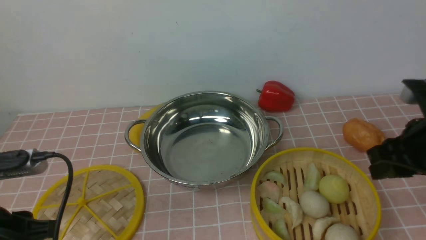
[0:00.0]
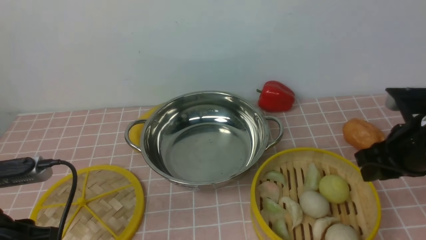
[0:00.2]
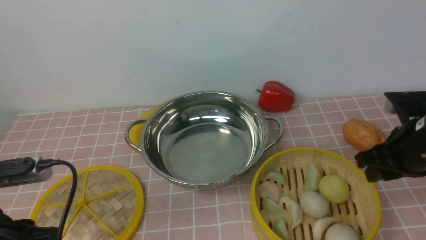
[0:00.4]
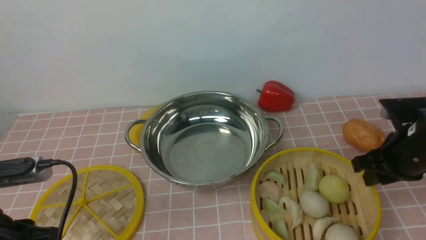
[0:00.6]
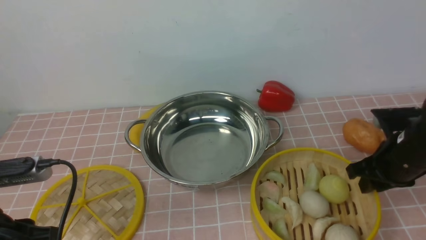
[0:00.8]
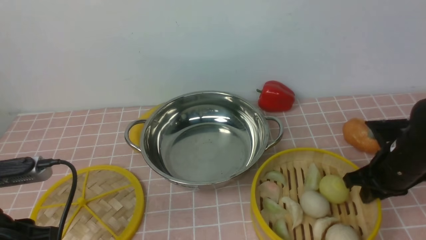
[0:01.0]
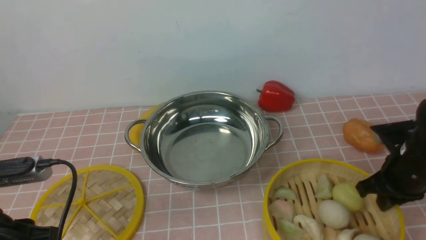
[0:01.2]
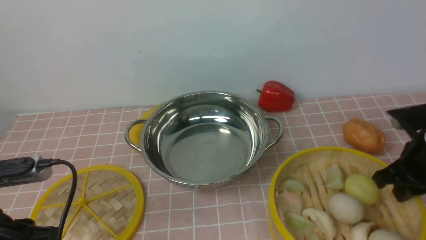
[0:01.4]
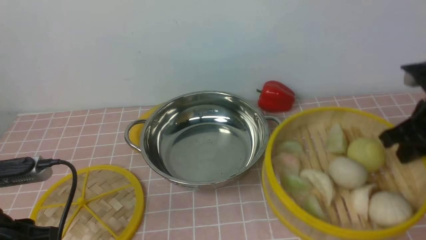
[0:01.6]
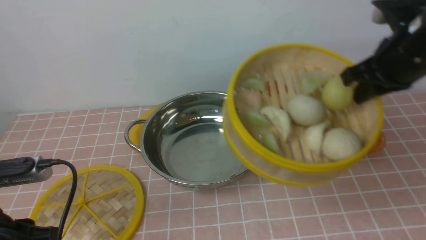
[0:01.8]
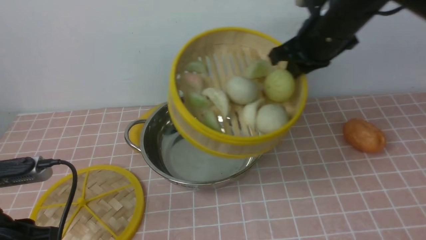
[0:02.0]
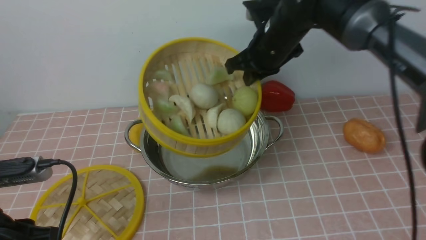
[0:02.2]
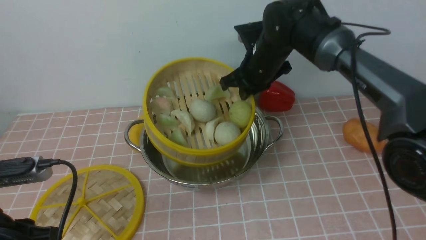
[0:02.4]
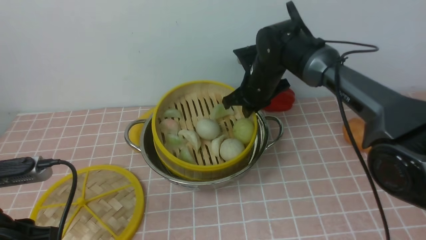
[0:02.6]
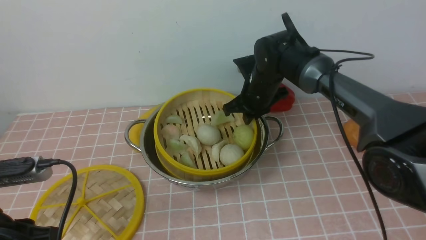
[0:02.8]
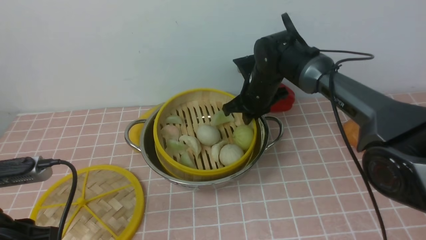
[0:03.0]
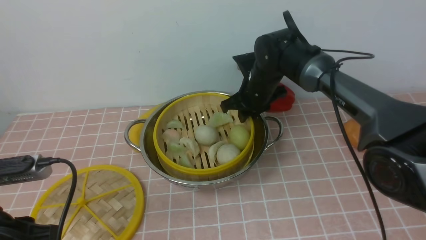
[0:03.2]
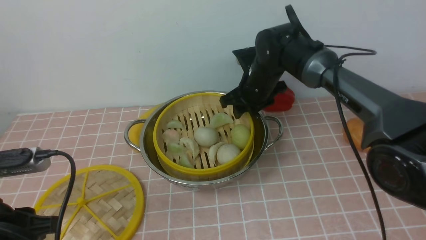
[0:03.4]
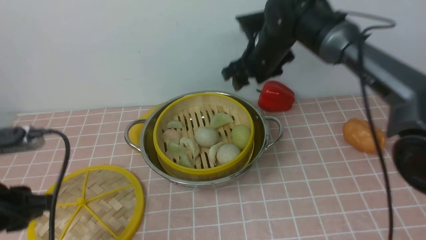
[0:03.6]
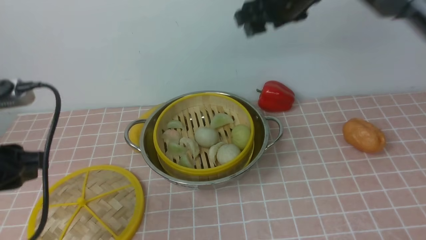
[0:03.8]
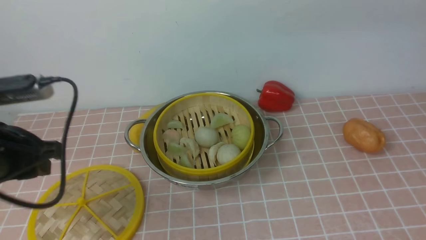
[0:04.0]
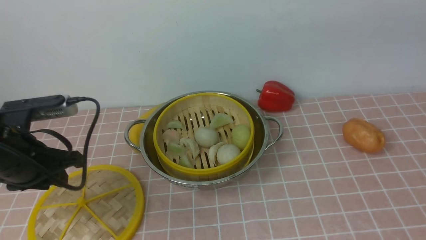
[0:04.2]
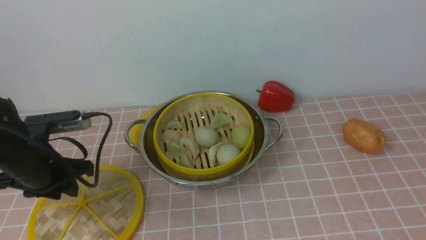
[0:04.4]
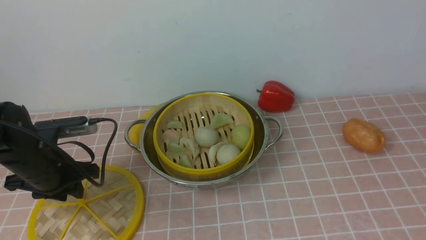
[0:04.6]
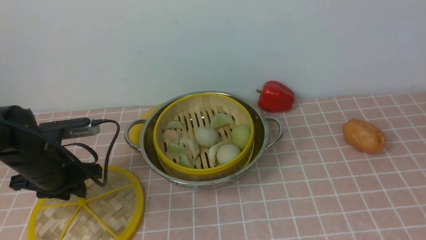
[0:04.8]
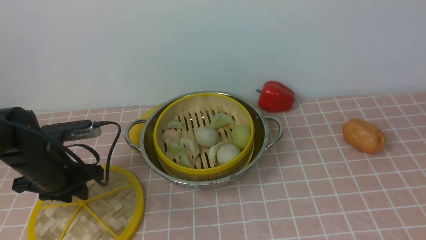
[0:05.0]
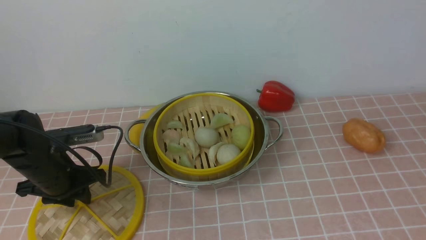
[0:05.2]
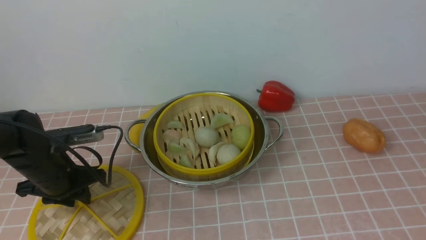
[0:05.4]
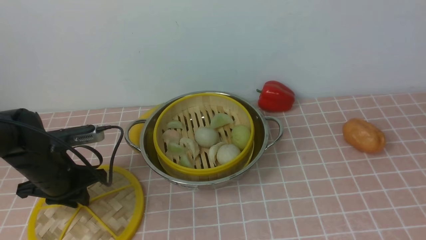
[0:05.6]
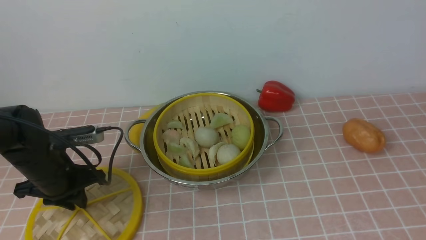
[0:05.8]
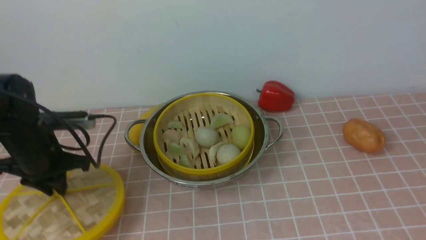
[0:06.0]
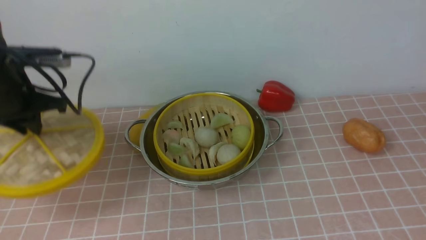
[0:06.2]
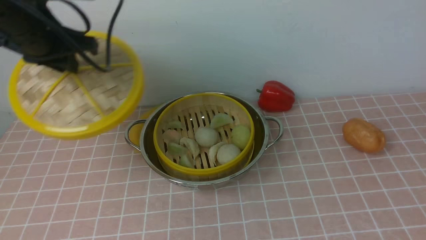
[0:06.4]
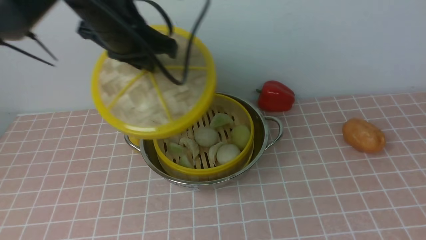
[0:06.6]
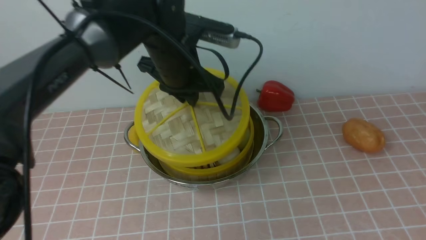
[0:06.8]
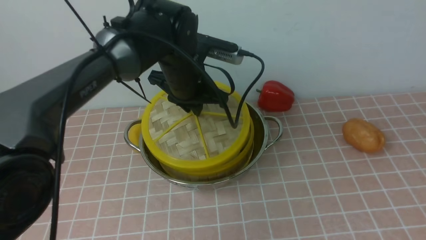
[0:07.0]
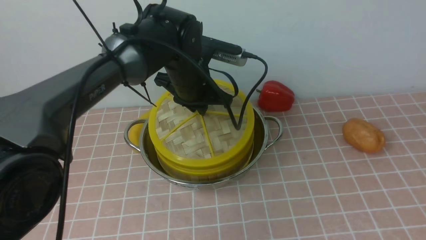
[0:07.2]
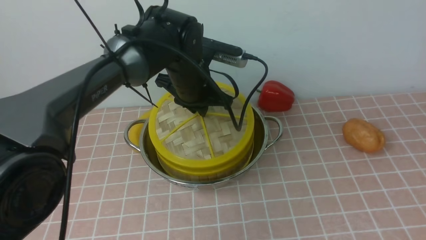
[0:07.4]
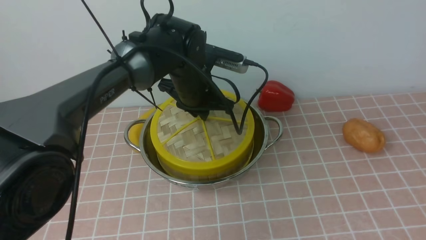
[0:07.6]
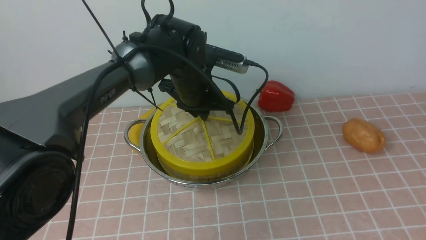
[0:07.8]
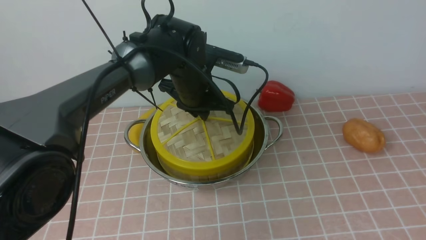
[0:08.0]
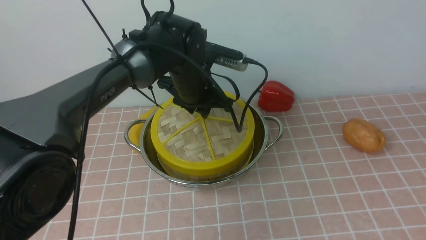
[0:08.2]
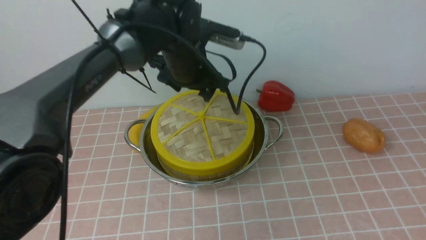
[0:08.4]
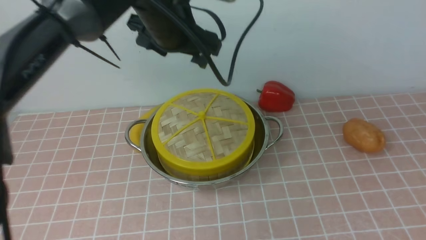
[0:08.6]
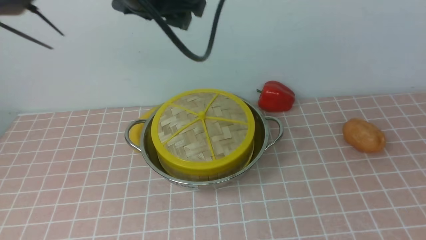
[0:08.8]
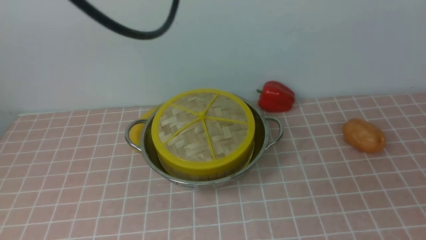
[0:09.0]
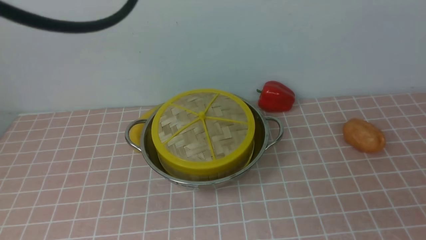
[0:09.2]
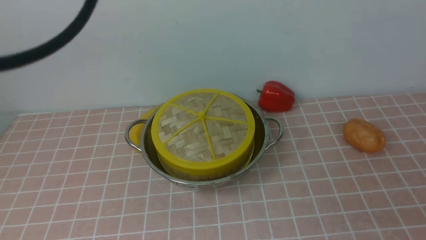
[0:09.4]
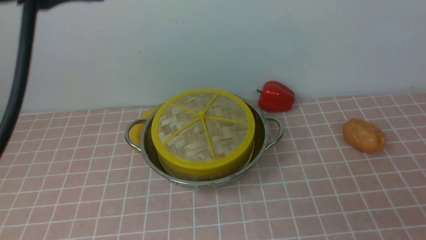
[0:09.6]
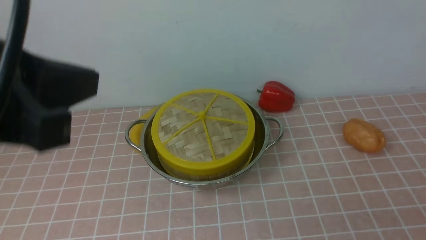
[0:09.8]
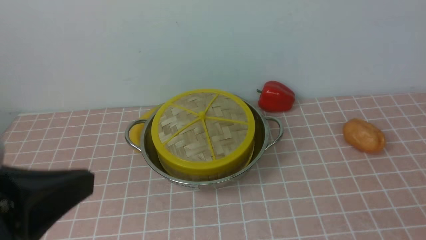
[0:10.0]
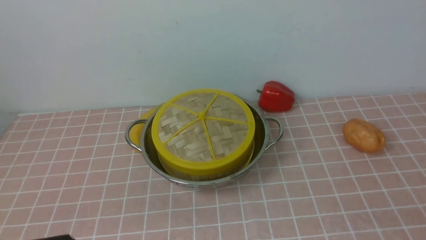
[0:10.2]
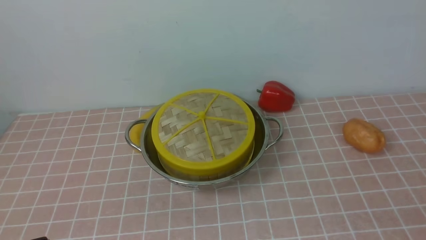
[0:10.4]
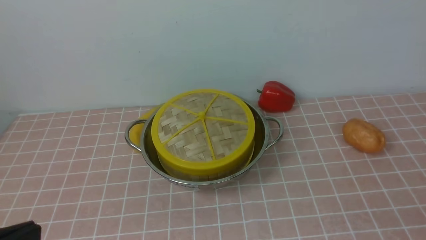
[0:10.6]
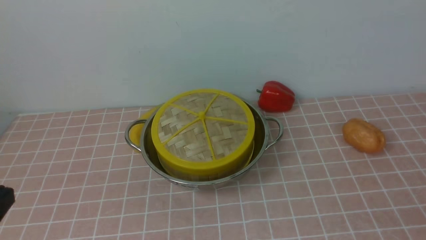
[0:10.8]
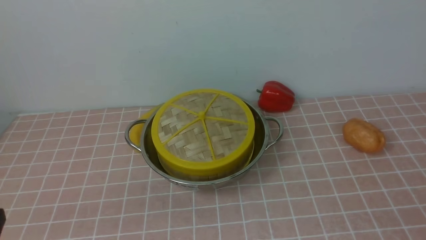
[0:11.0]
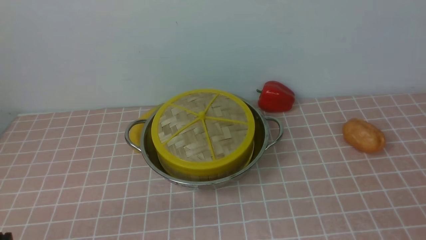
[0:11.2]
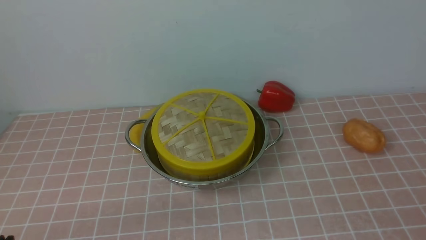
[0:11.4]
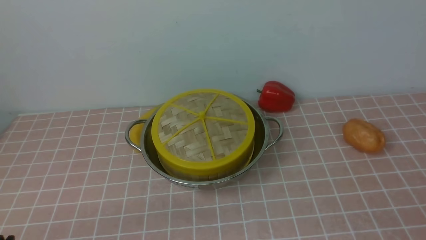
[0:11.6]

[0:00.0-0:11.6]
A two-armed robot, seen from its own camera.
Task of the whole recording: place the steamer in the pot on the pink tablecloth, and put the lid on the steamer.
Step, 0:01.4 to 0:03.4: use the right arm to put the steamer into the iron steamer pot in the middle.
Step, 0:03.6 to 0:05.8: use the left arm to lift the lid of the steamer.
Step, 0:06.0 to 0:08.2: use the left arm to place the steamer lid on the steamer.
0:00.0 to 0:01.4: The right gripper reaches about 10 cm downward, then returns, and closes up.
0:01.4 to 0:02.8: The right gripper travels to the left and forward by roughly 30 cm.
0:02.8 to 0:04.4: The right gripper shifts some 50 cm backward, upward and to the right, and opens up. The left gripper travels forward by approximately 15 cm.
0:05.8 to 0:07.2: The left gripper travels to the right and forward by about 25 cm.
0:07.2 to 0:08.8: The right gripper goes approximately 5 cm downward, and closes up, while the left gripper travels upward by some 20 cm, and opens.
0:08.8 to 0:10.2: The right gripper goes roughly 10 cm downward, and closes its fingers; the left gripper is displaced backward by about 30 cm, and closes.

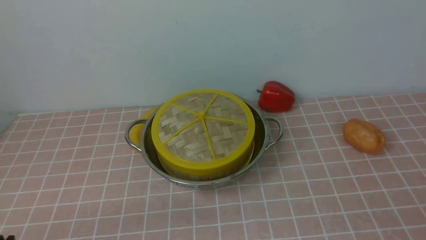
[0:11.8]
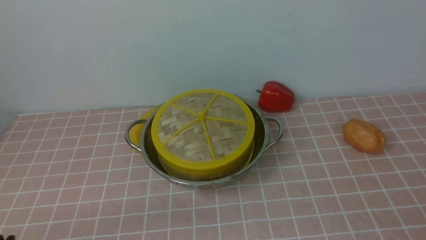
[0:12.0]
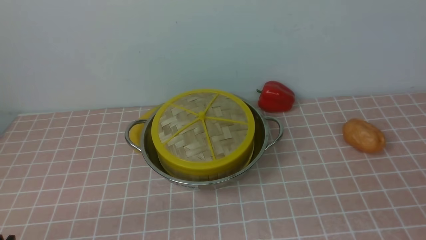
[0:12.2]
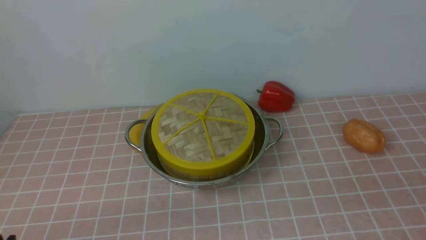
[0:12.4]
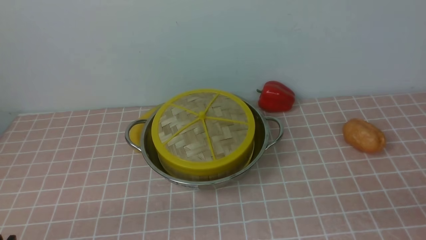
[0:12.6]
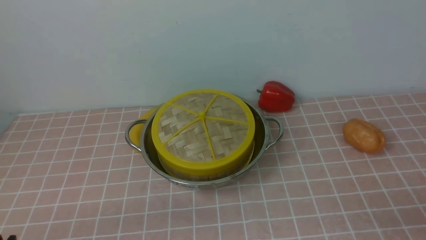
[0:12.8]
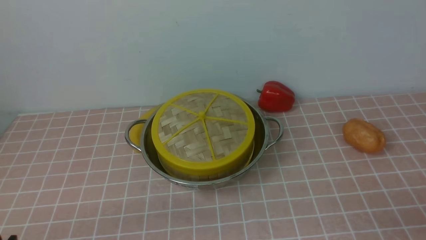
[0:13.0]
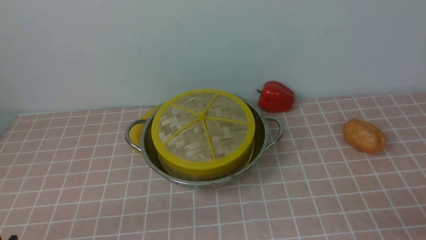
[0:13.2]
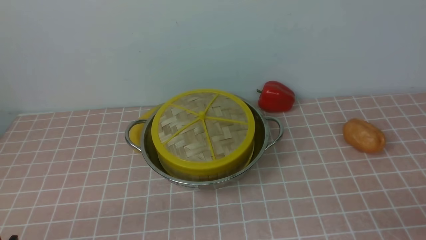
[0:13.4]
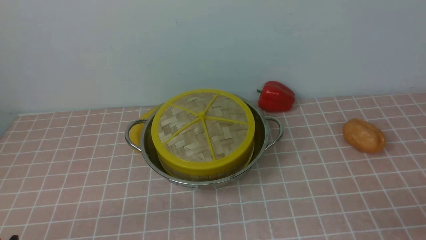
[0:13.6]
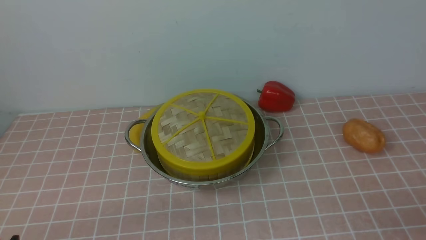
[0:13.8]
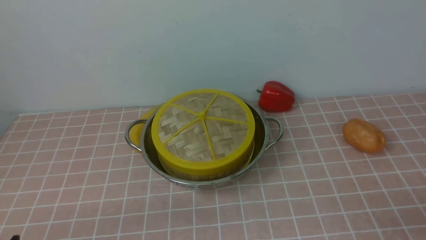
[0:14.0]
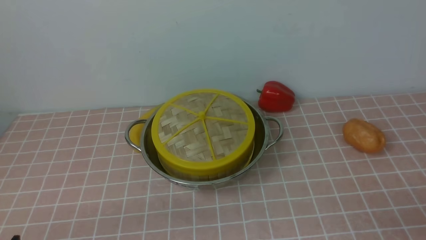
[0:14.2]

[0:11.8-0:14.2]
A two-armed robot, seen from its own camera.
Task of the whole recording: place the steamer in the pot on the pink tablecloth, and put the lid on the steamer.
0:13.0 to 0:14.2: Both grippers stay about where they are.

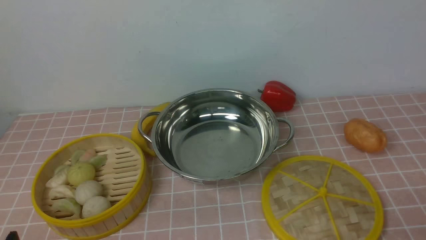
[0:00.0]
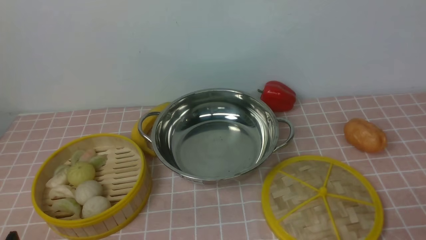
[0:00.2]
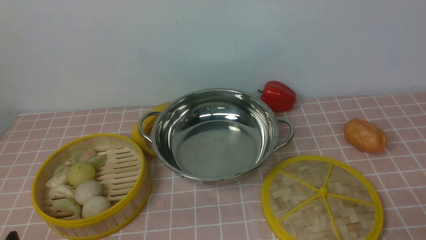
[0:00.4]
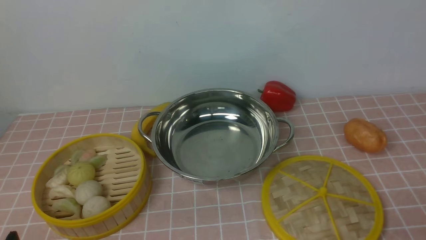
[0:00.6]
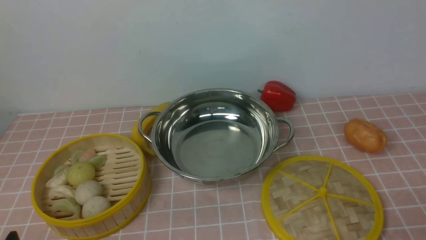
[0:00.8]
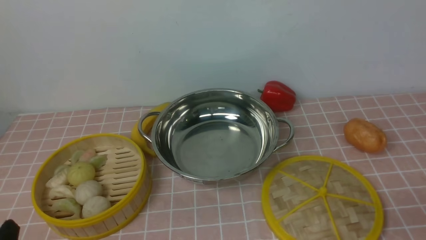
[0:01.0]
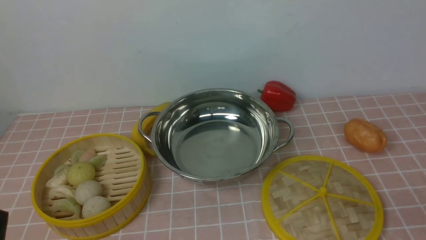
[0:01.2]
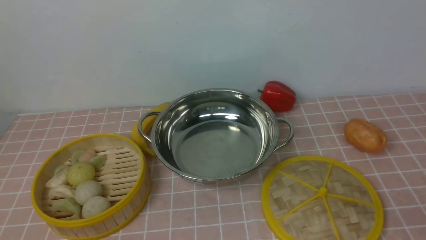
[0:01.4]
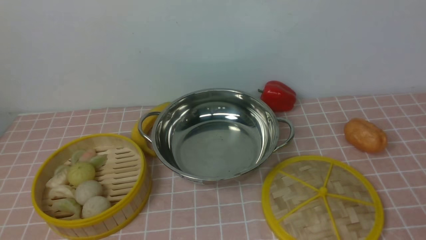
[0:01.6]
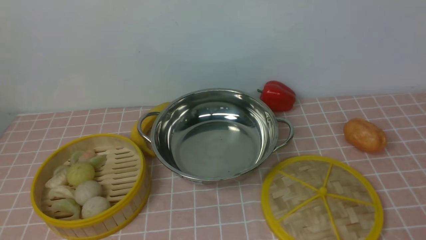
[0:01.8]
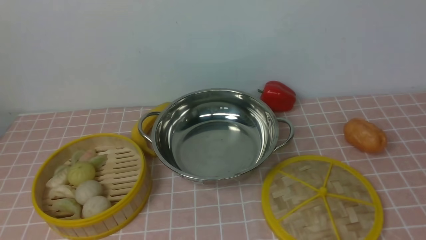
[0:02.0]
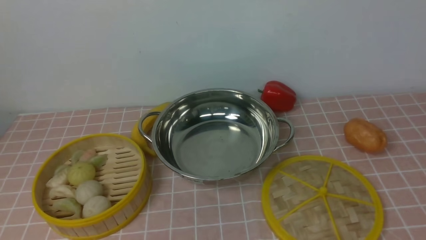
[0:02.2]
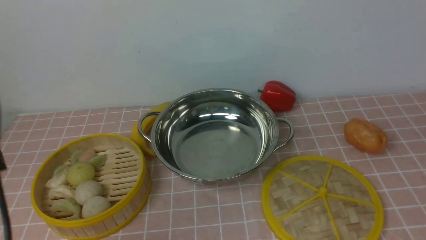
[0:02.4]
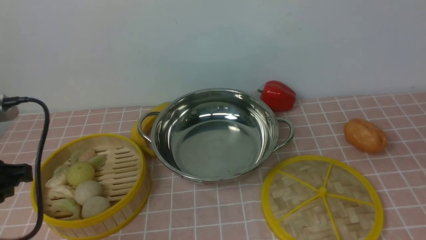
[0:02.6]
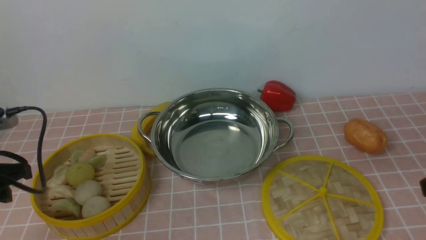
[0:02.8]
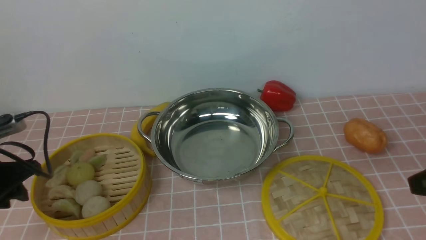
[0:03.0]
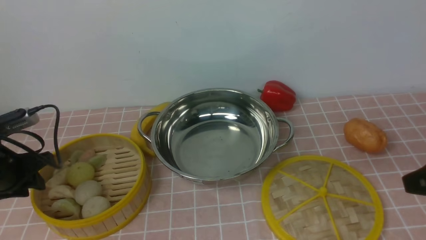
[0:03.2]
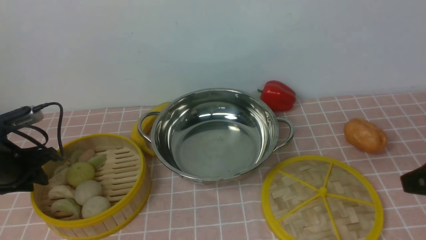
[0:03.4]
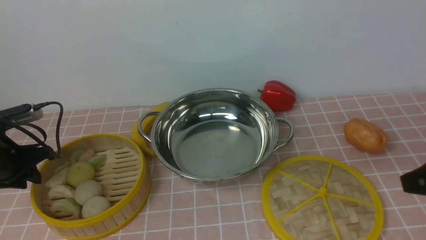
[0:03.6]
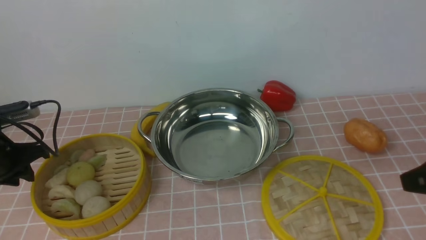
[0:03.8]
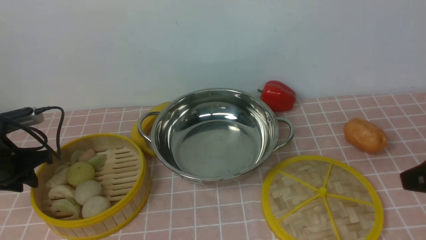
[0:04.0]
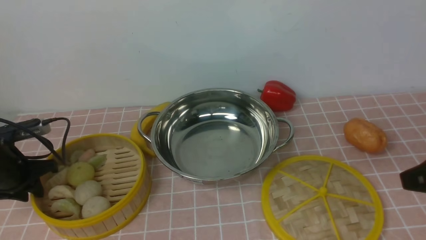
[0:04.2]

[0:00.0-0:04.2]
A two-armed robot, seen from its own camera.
Task of the whole recording: place the steamer in the pot on the pink tablecloth, and put the lid on the steamer.
0:01.4 to 0:02.8: The left gripper travels forward and upward by about 15 cm.
0:02.8 to 0:04.2: The left gripper travels forward, downward and to the left by about 15 cm.
